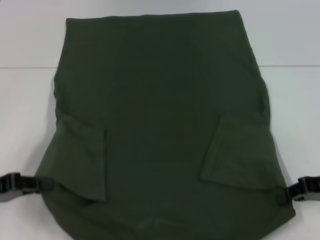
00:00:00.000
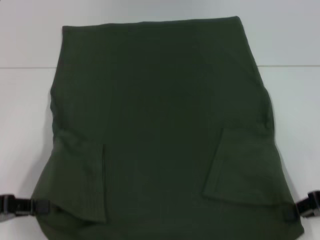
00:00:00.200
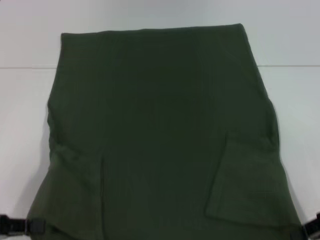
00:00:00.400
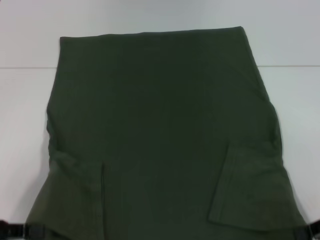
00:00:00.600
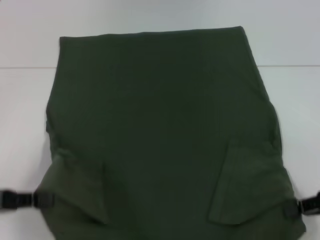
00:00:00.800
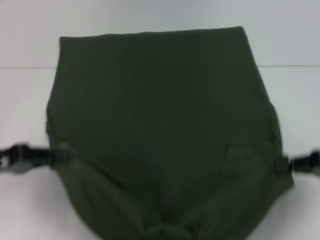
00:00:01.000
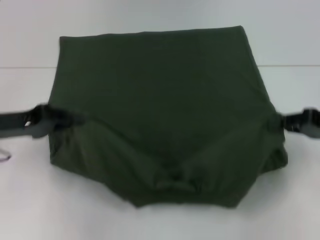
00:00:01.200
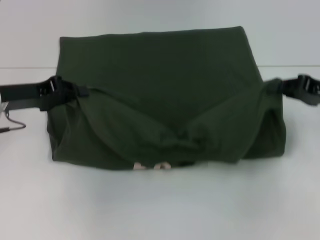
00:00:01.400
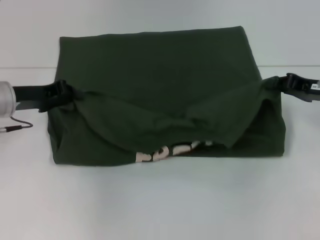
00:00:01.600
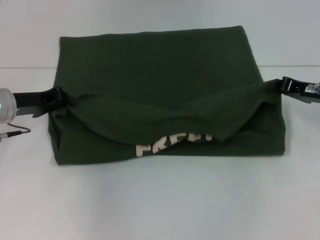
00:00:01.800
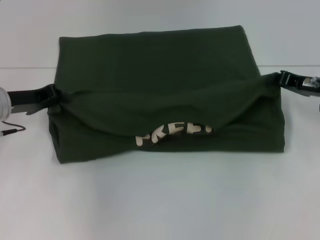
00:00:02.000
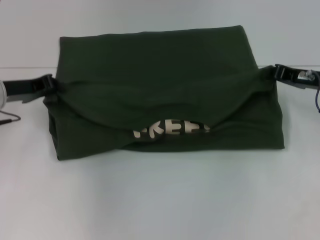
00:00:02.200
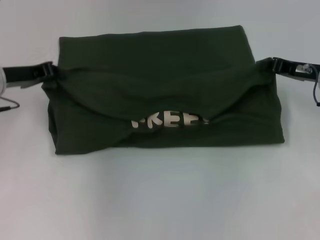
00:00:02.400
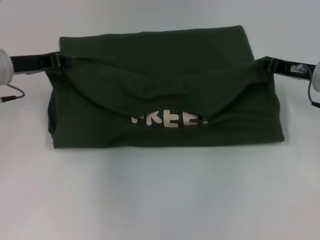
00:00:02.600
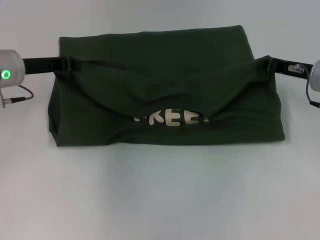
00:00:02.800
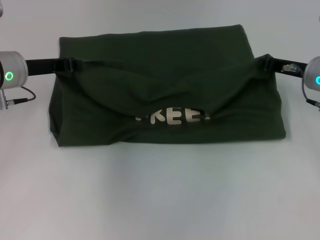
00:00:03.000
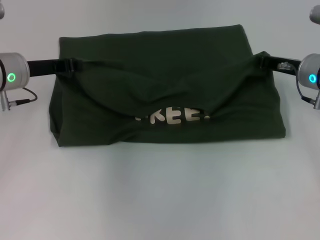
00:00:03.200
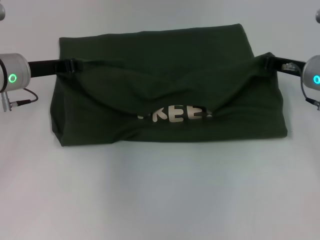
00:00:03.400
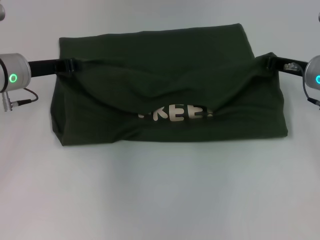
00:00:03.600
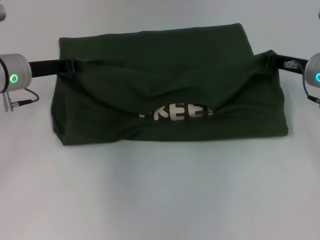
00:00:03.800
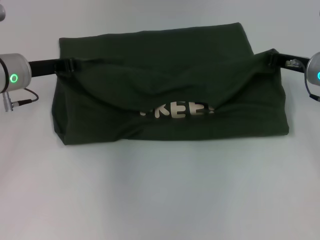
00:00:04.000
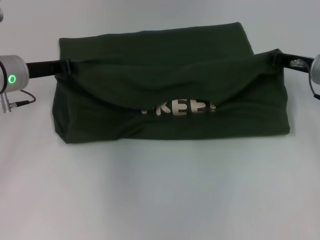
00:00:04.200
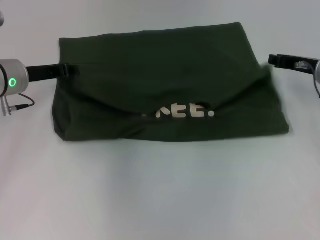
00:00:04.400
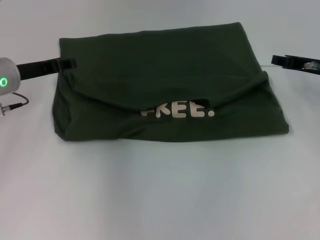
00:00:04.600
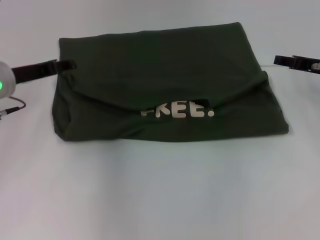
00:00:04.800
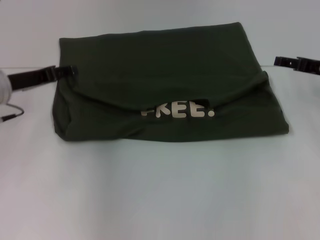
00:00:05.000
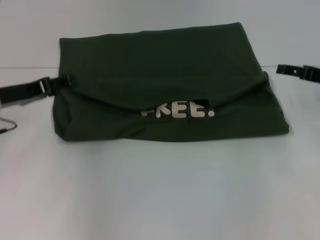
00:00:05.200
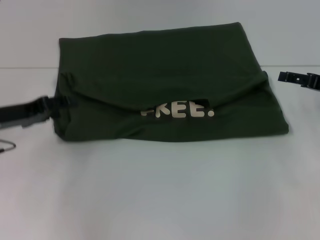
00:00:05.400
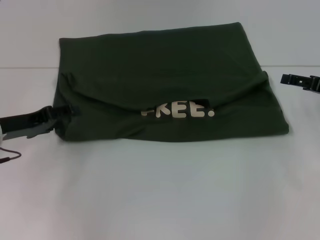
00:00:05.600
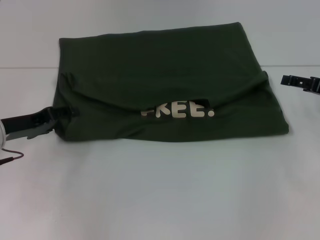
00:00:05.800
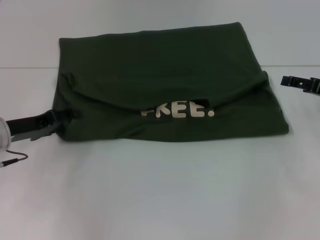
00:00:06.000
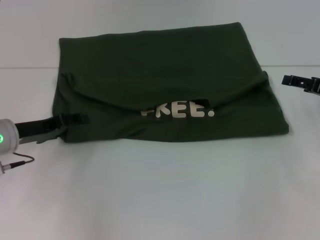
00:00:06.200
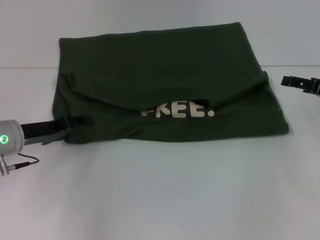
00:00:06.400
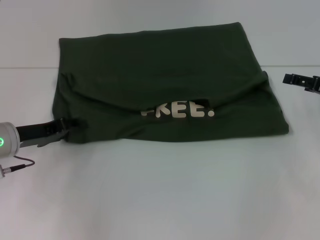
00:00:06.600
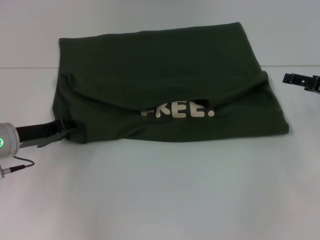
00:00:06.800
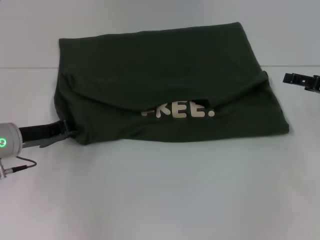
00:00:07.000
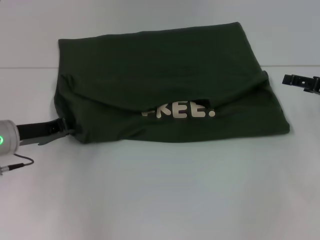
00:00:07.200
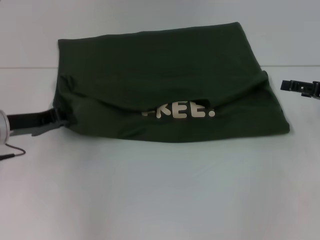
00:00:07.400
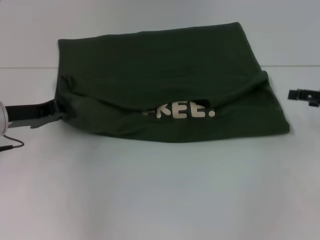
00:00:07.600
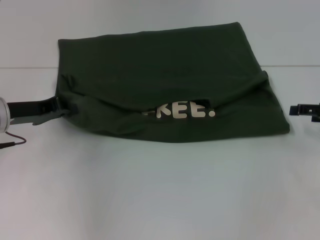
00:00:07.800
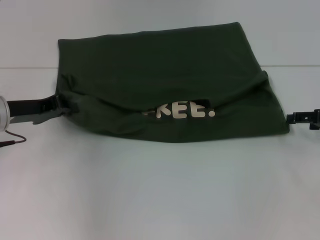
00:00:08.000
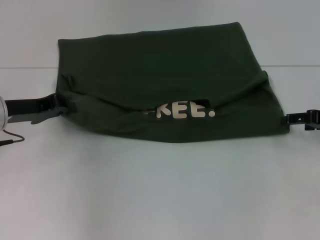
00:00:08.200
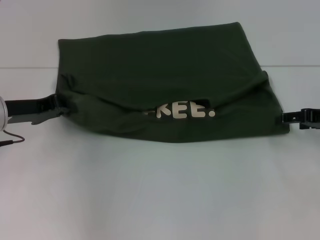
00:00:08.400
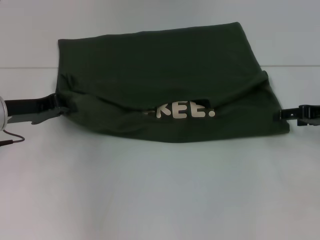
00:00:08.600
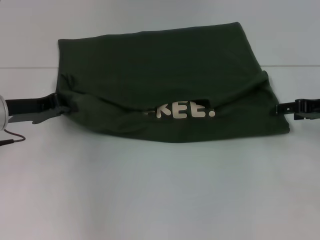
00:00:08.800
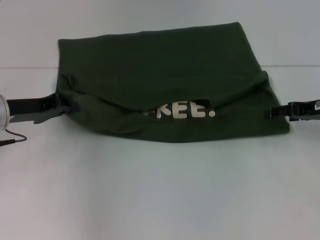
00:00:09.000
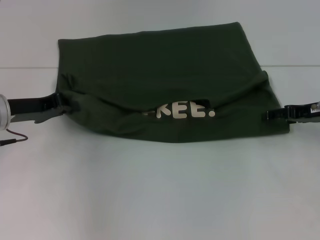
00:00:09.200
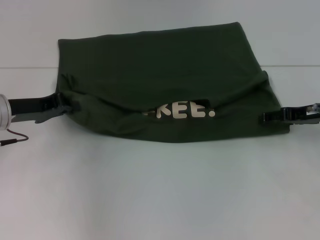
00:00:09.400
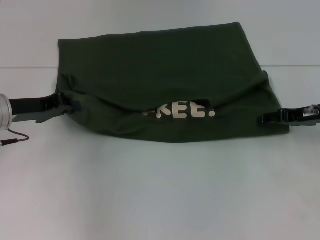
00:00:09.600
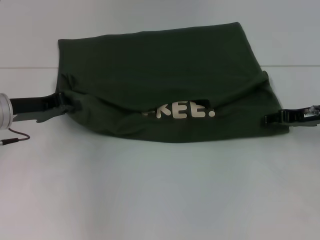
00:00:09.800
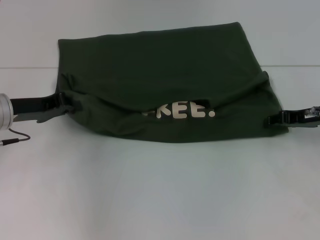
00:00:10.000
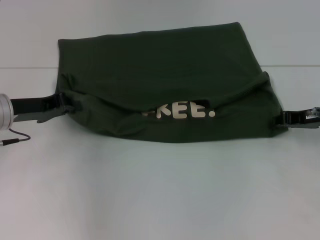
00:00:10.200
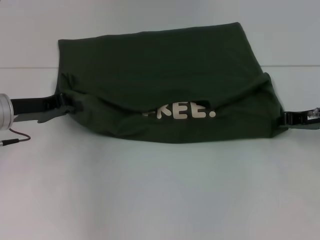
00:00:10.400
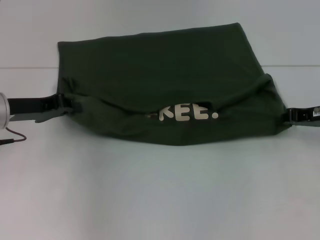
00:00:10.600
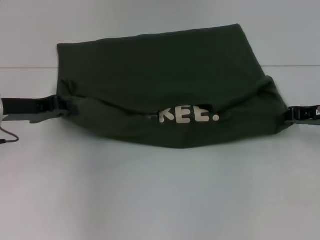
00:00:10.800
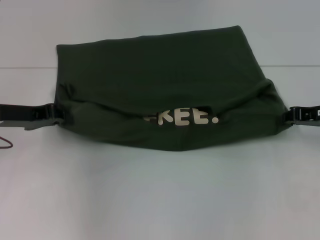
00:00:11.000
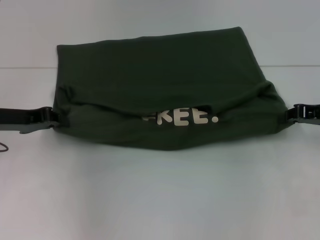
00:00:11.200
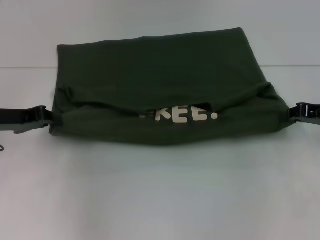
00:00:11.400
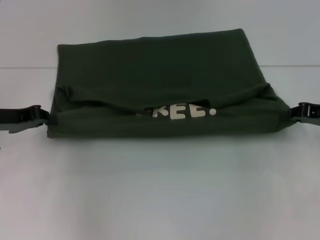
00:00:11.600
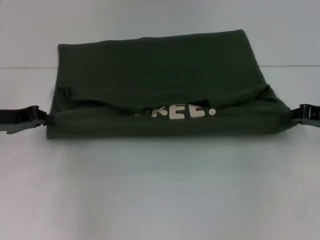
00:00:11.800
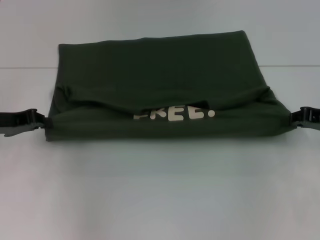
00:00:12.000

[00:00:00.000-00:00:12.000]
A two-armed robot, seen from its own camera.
Step, 00:00:00.000 to 00:00:04.800: Fold the clothes with your left hand.
Step, 00:00:00.000 to 00:00:04.800: Fold the clothes with your right hand.
00:00:00.000 to 00:00:01.600: The right gripper travels forward by about 10 cm; the left gripper travels forward and to the right by about 15 cm.
00:00:01.600 to 00:00:03.000: The right gripper moves approximately 5 cm.
00:00:03.000 to 00:00:04.400: The grippers move only a little.
00:00:04.400 to 00:00:06.000: The left gripper moves backward and downward, some 10 cm, and opens its fingers. Meanwhile the right gripper goes some 10 cm to the right and backward, and opens.
00:00:06.000 to 00:00:07.600: The left gripper closes its fingers.
00:00:07.600 to 00:00:09.000: The right gripper heads to the left, covering approximately 5 cm.
00:00:09.000 to 00:00:10.400: The right gripper closes its fingers.
00:00:10.400 to 00:00:12.000: The grippers stay close to where they were, moving slightly.

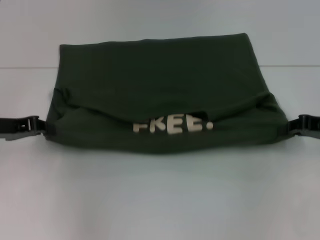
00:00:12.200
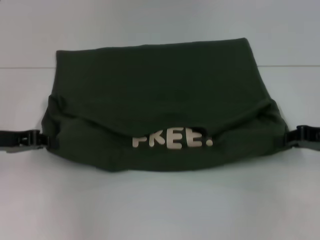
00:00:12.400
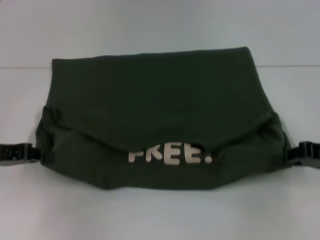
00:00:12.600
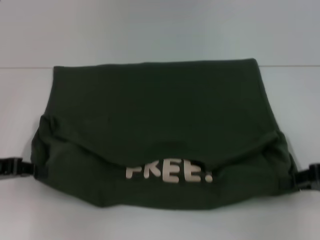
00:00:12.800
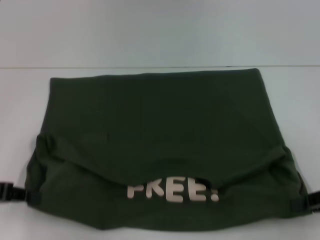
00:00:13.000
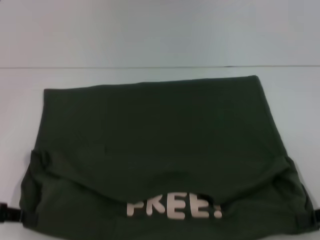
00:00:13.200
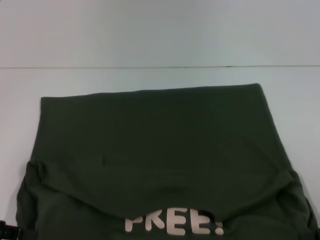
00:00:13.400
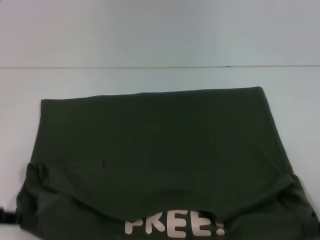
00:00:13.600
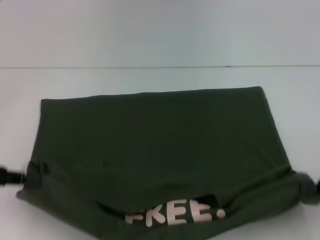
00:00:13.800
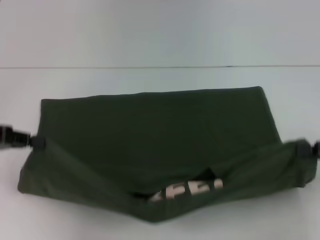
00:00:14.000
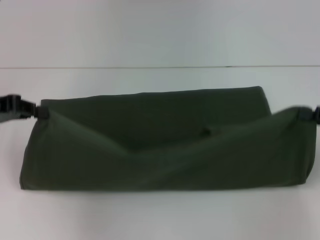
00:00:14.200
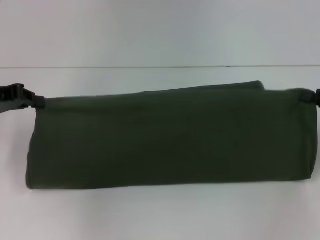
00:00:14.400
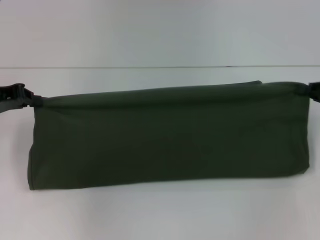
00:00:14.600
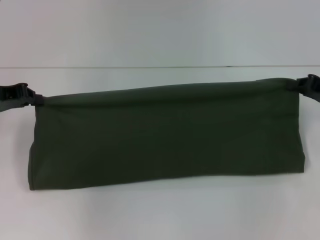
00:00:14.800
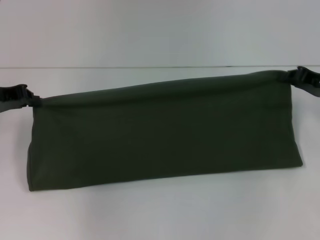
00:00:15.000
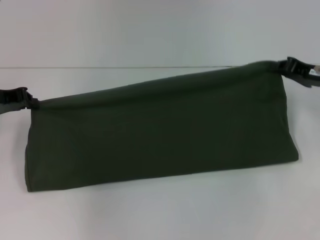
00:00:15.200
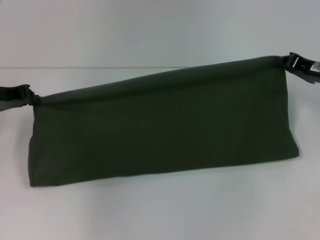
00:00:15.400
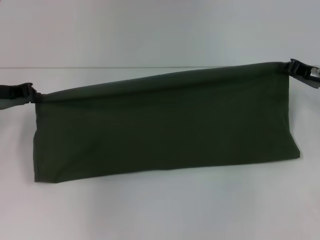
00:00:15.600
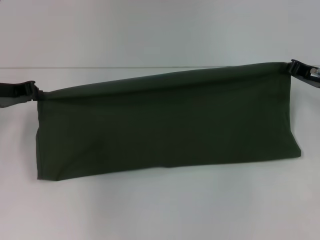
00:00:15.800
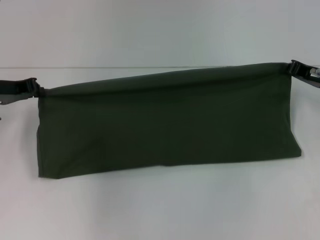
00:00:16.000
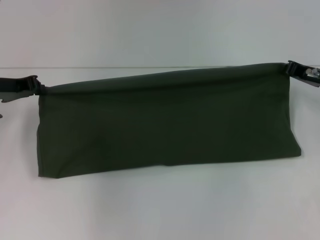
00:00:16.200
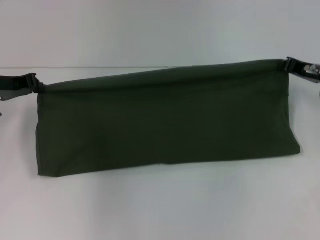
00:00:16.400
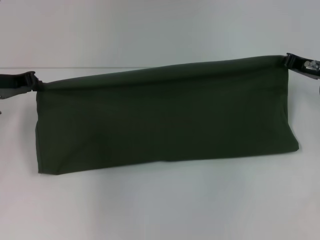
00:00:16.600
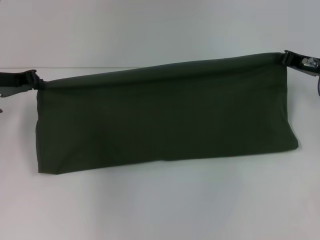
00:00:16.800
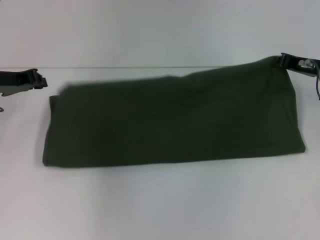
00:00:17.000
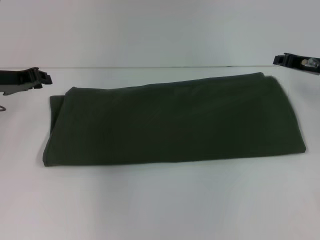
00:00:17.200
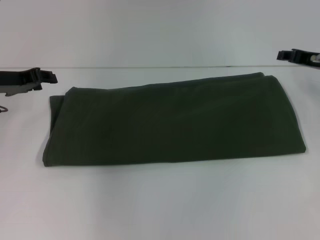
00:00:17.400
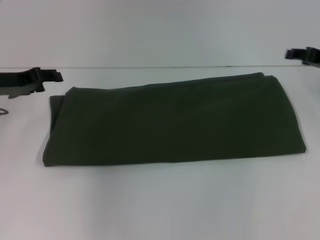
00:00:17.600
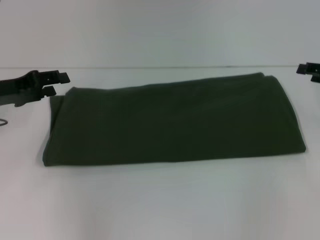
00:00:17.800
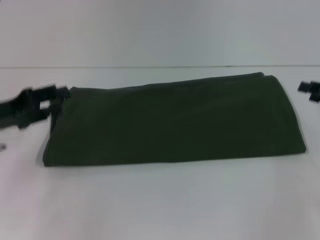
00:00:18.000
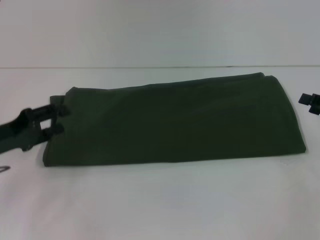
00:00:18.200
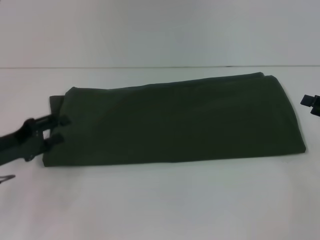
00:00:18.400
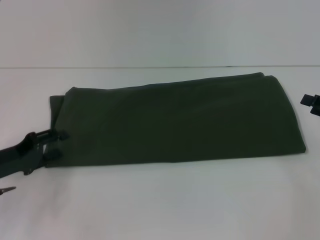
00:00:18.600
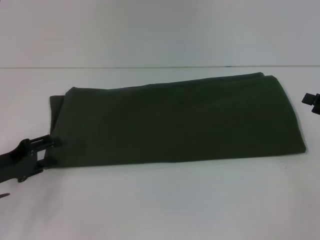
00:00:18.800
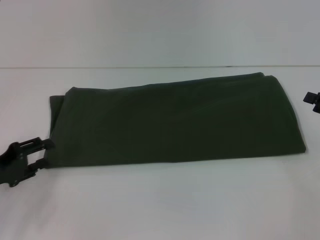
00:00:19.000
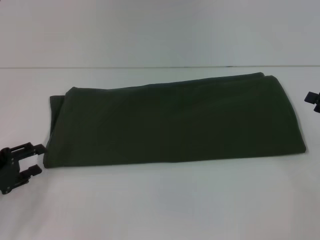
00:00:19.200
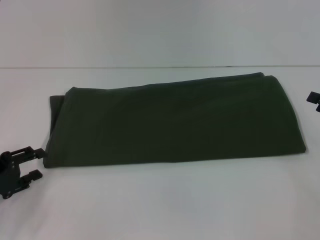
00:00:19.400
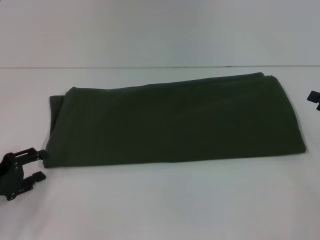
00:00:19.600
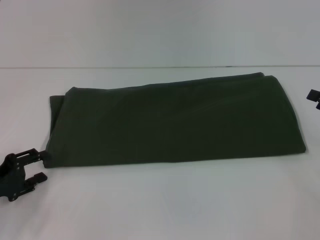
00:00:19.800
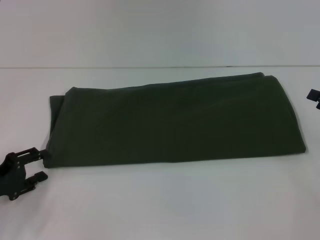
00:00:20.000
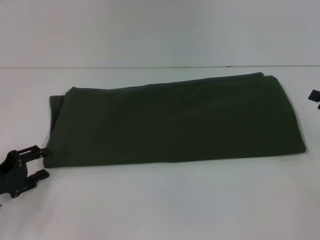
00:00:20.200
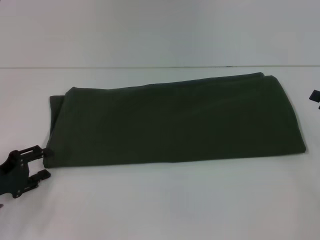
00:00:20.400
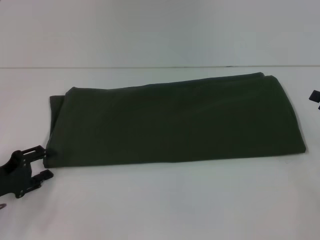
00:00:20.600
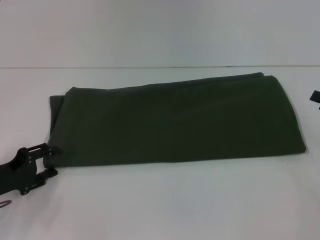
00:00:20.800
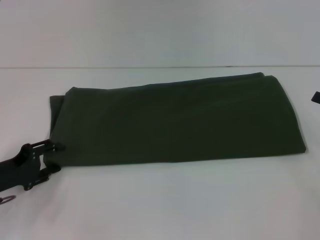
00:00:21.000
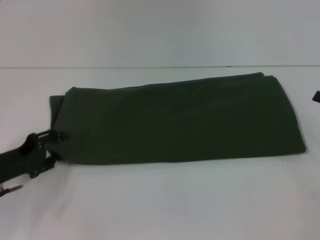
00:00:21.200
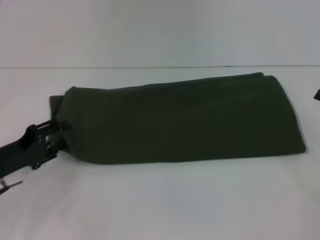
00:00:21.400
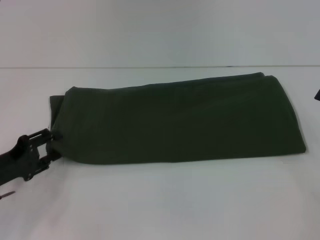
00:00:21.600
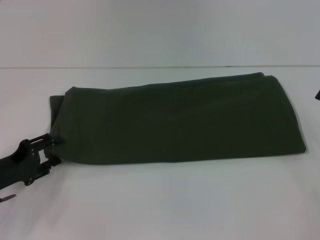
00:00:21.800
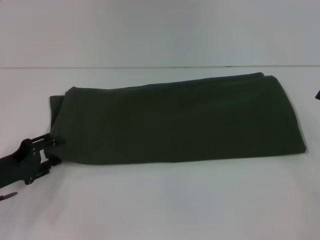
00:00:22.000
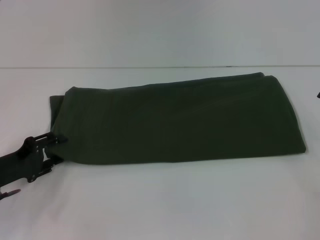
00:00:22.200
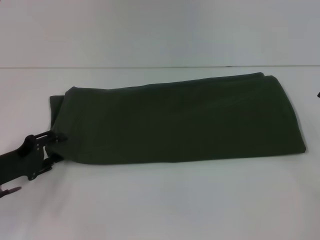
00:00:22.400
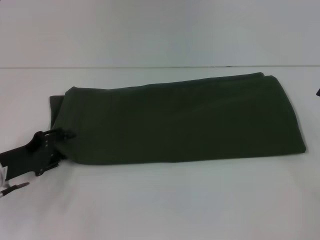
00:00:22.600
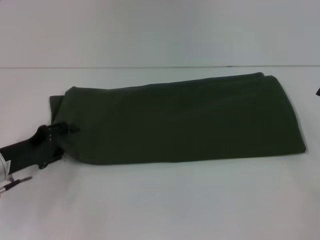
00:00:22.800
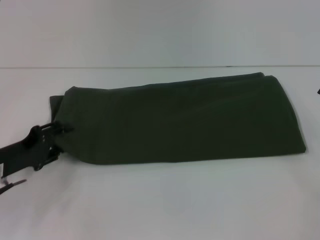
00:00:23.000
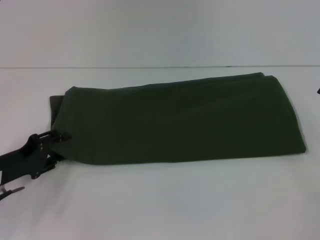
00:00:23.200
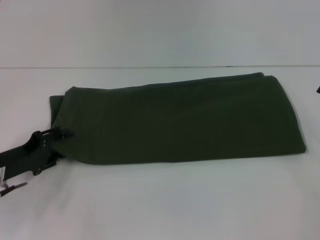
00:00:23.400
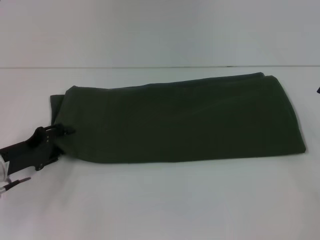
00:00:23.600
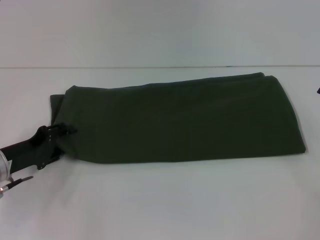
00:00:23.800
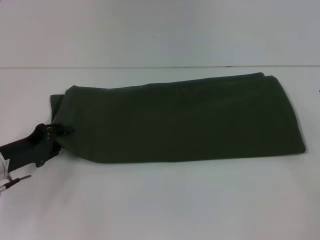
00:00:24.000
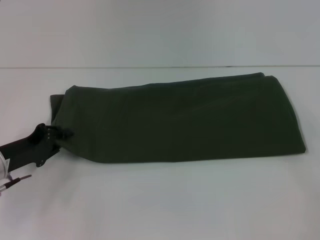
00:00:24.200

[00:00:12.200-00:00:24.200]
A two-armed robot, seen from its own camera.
Step, 00:00:13.400 to 00:00:17.200: Fold the clothes with your right hand.
00:00:12.200 to 00:00:13.800: Both grippers move backward, about 10 cm.
00:00:13.800 to 00:00:15.200: The right gripper moves forward and to the left, roughly 15 cm; the left gripper travels forward by about 10 cm.
00:00:15.200 to 00:00:16.600: The grippers move only a little.
00:00:16.600 to 00:00:18.200: The left gripper travels backward and downward by some 10 cm, and opens its fingers; the right gripper travels backward and to the right by about 15 cm, and opens.
00:00:18.200 to 00:00:19.800: The left gripper goes approximately 5 cm downward.
00:00:19.800 to 00:00:21.200: The grippers move only a little.
00:00:22.600 to 00:00:24.200: There are only small adjustments of the grippers.
